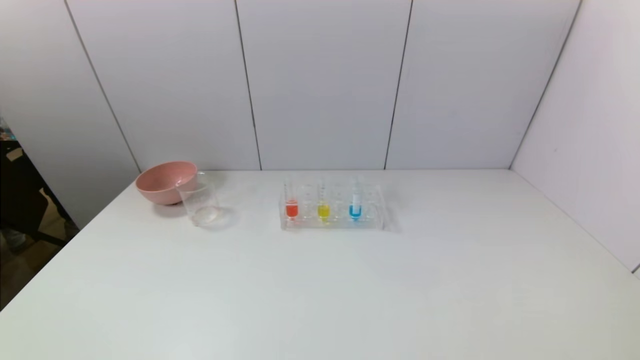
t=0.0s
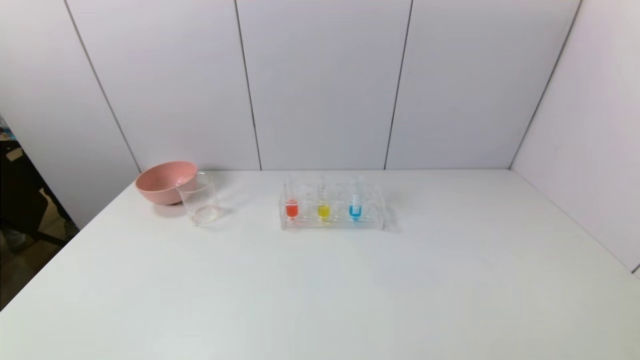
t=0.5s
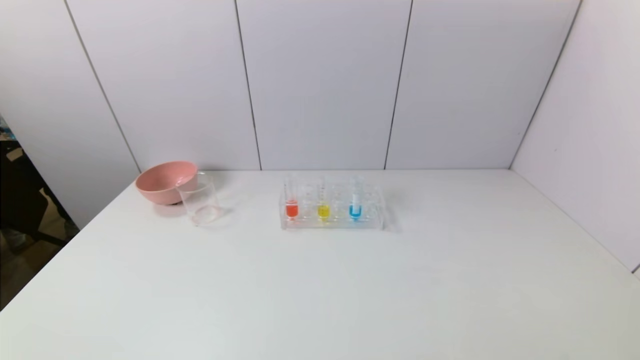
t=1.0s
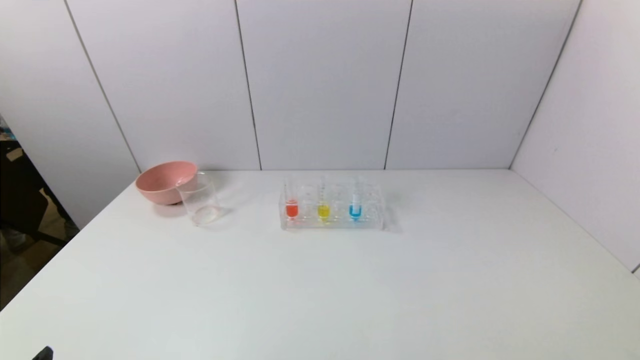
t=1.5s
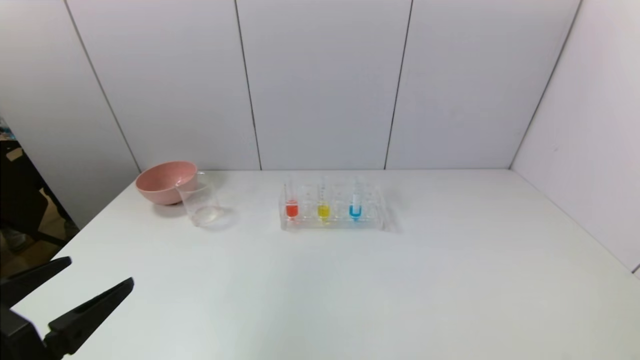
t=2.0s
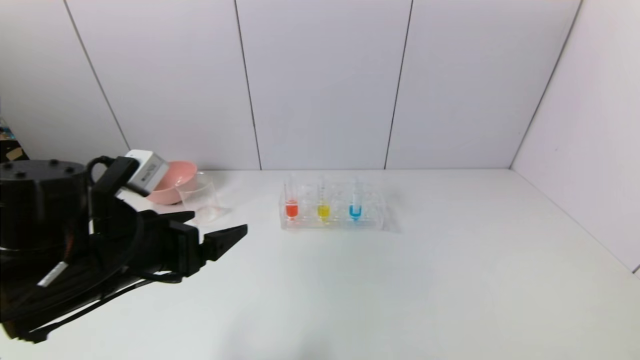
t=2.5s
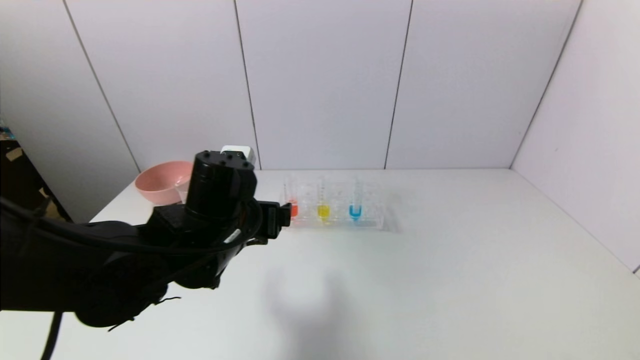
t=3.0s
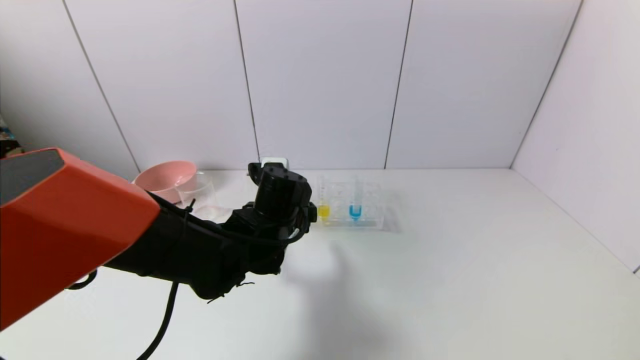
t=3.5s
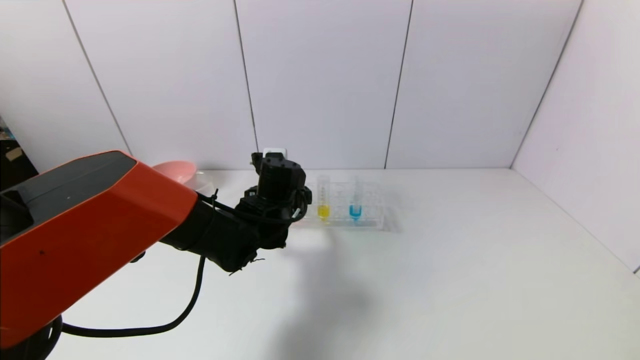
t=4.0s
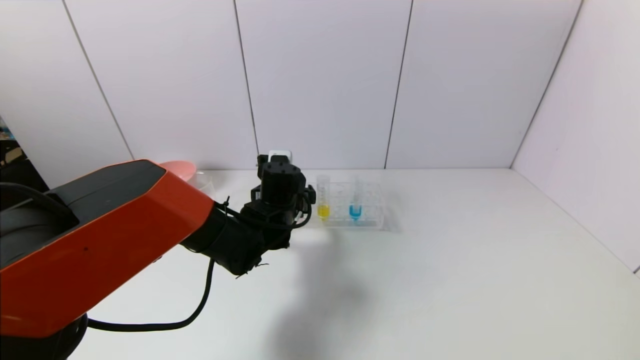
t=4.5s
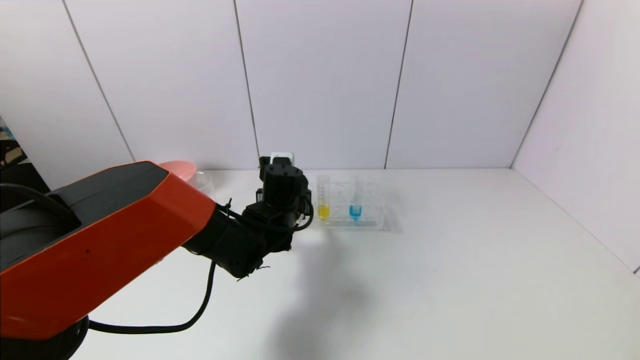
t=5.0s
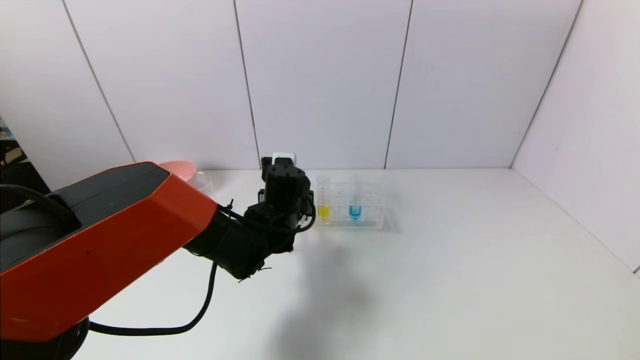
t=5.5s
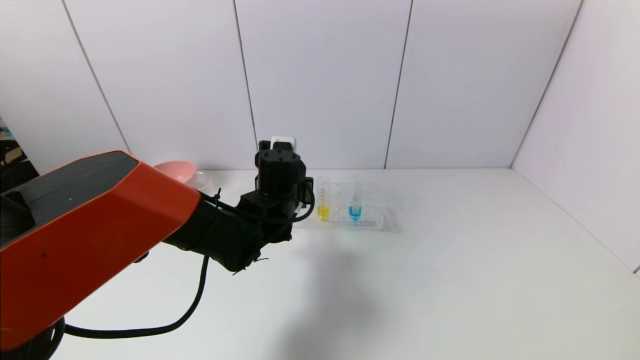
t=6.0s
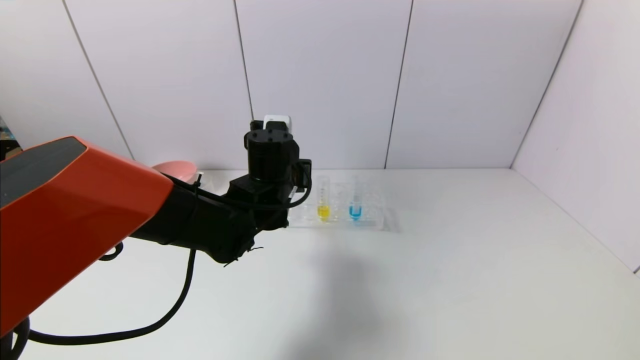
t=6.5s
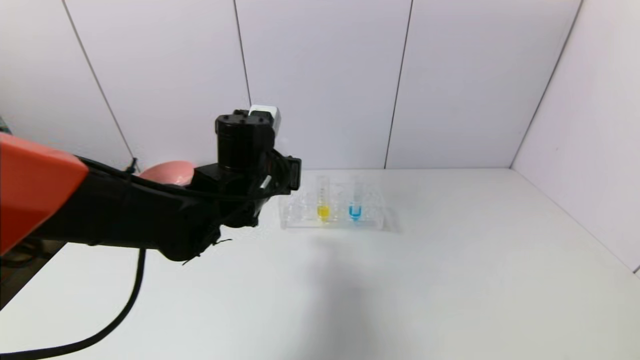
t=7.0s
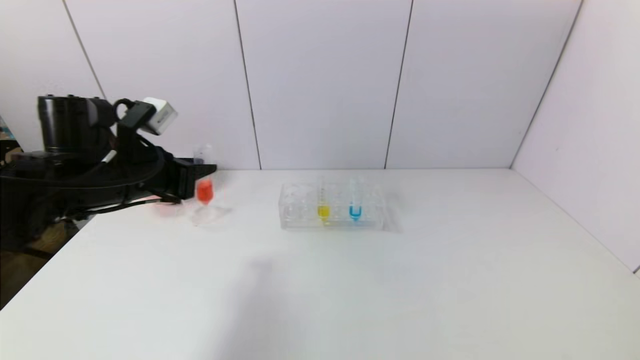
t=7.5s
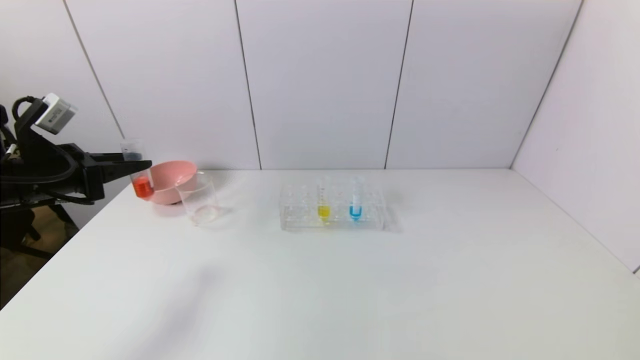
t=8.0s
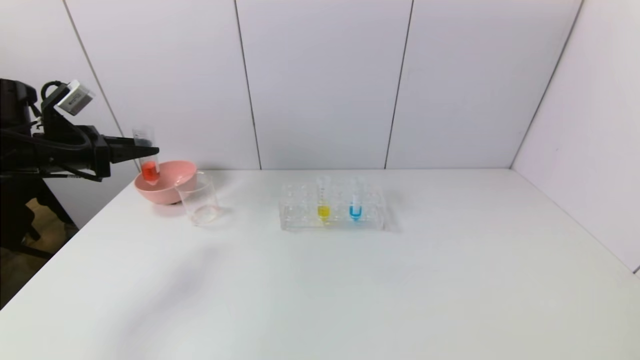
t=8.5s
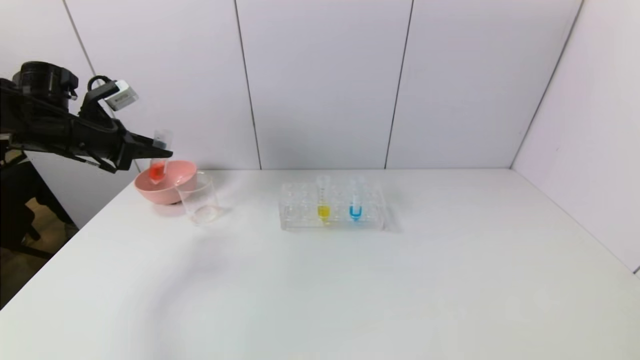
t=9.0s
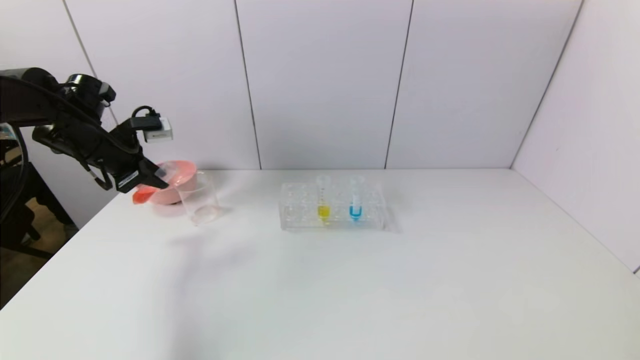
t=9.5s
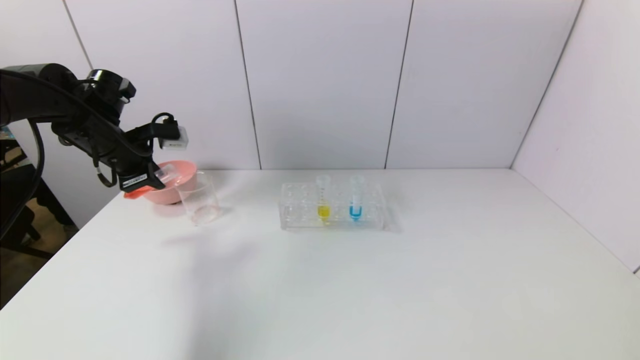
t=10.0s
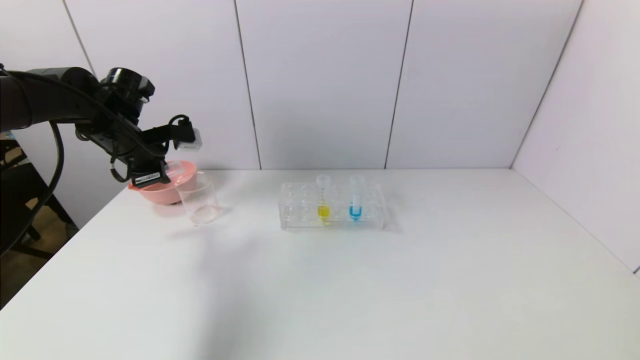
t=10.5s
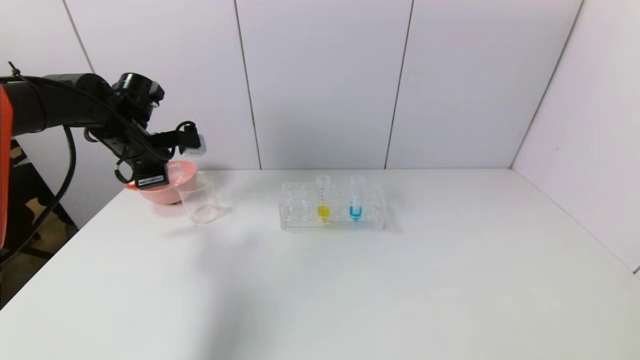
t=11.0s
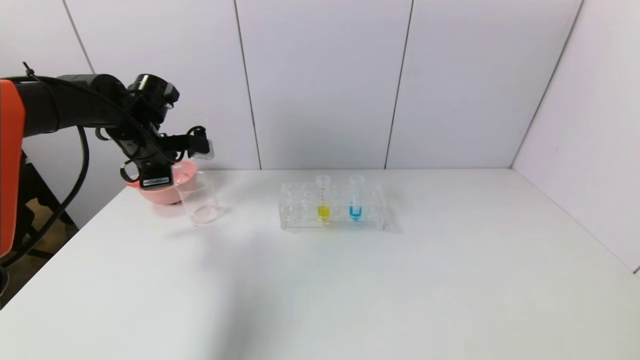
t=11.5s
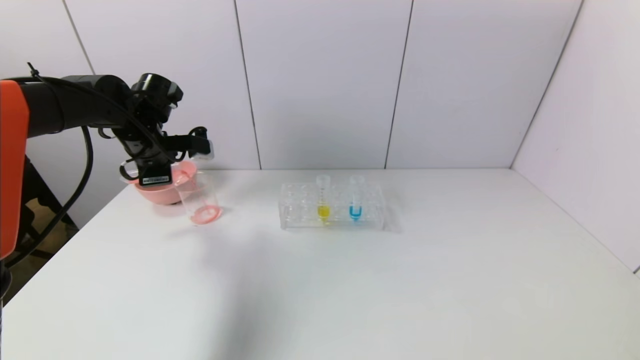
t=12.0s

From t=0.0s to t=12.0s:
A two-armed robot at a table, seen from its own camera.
Task of the whole recording: pick up the test tube with red pigment and the test tube with blue pigment by grippers and pour them into the container.
Step, from t=0.0s to t=5.0s: Grasp the red reagent with the left gripper.
From t=0.0s to t=2.0s: The left gripper is displaced forward and upward by roughly 15 cm.
From t=2.0s to t=4.0s: The left gripper travels forward and to the right by approximately 35 cm.
From t=4.0s to t=6.0s: The left gripper closes up.
From t=6.0s to t=8.0s: The left gripper heads to the left, covering some 30 cm.
From t=8.0s to t=10.0s: The left gripper heads forward, covering approximately 10 cm.
From t=10.0s to t=12.0s: The left gripper shifts by approximately 5 cm.

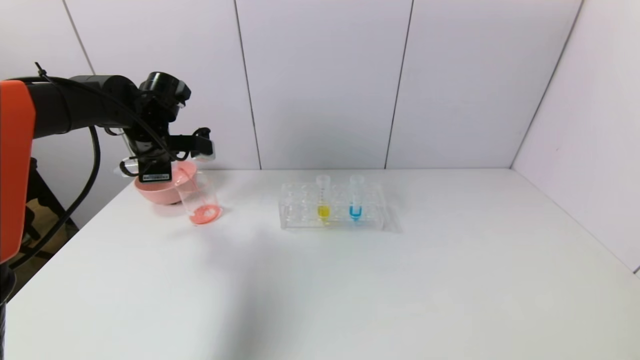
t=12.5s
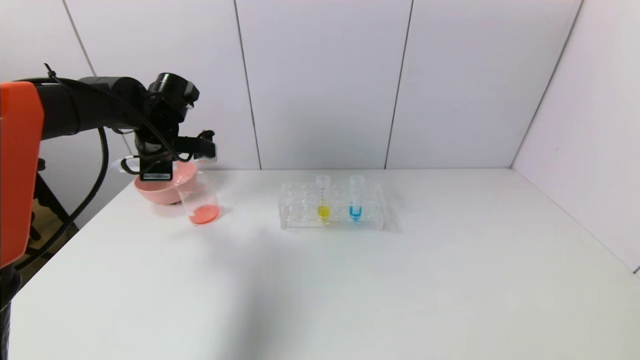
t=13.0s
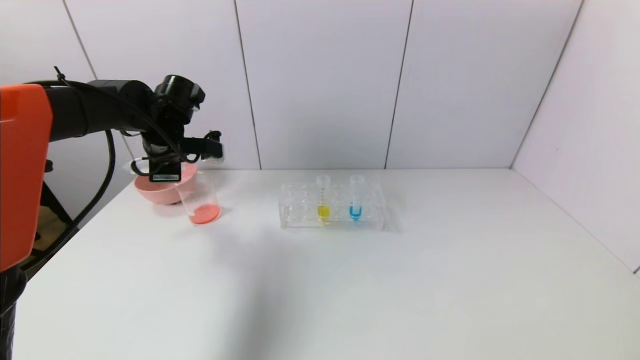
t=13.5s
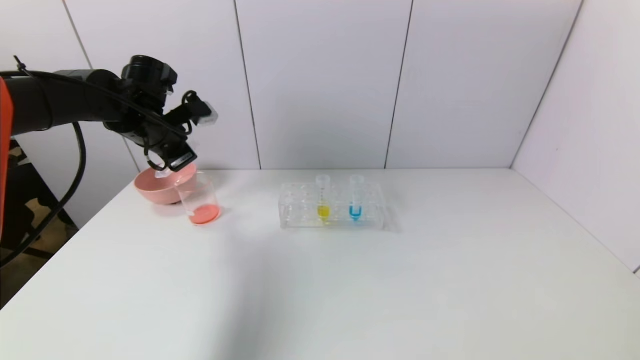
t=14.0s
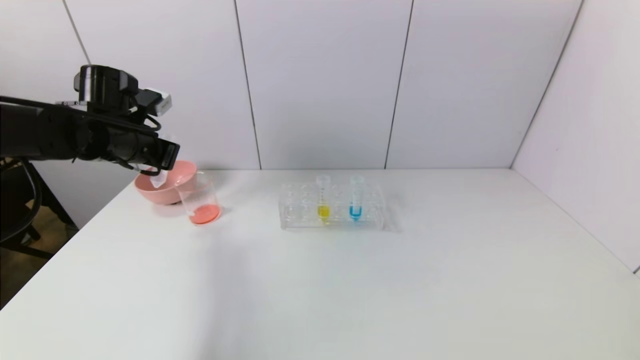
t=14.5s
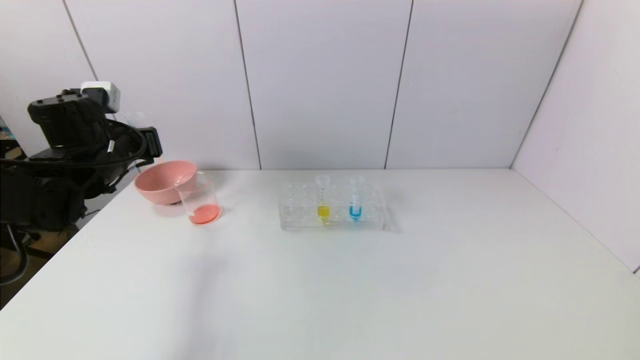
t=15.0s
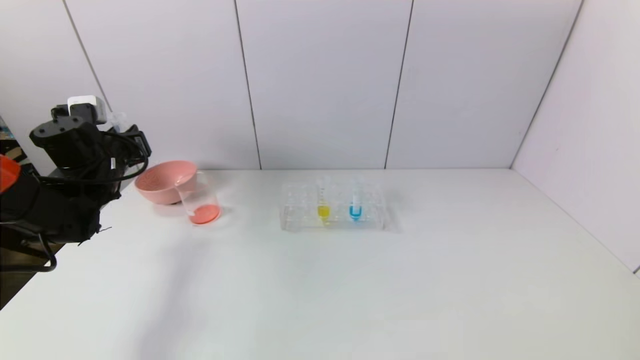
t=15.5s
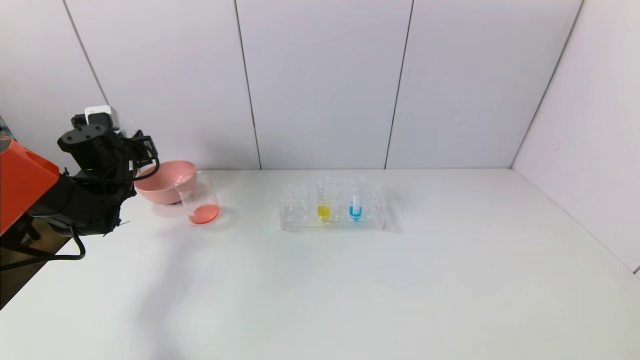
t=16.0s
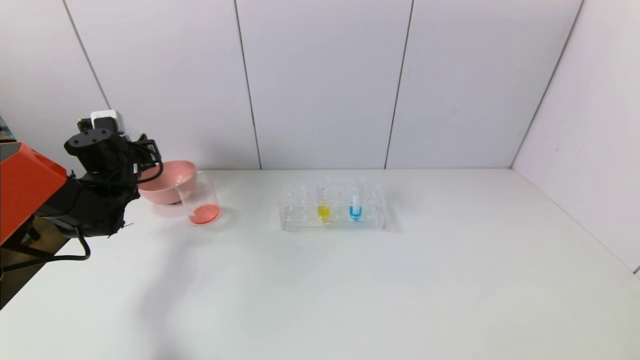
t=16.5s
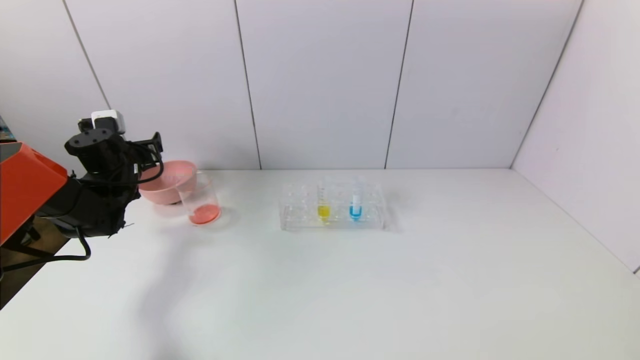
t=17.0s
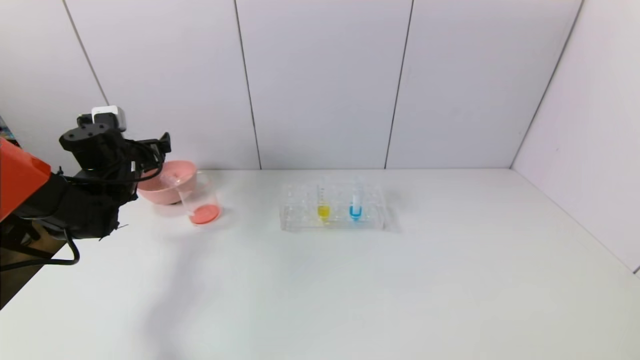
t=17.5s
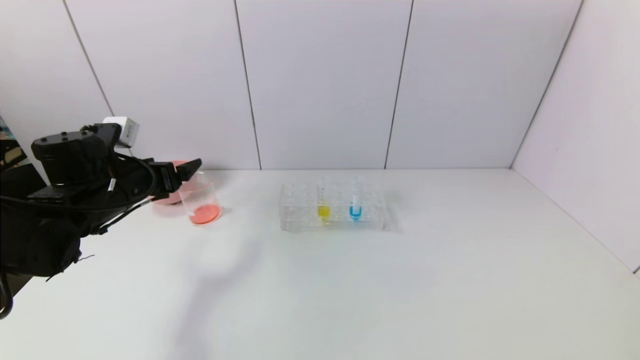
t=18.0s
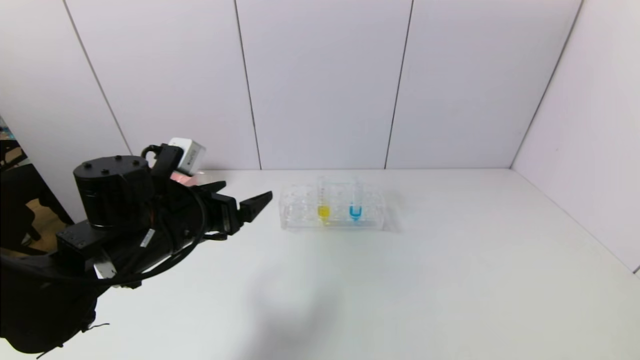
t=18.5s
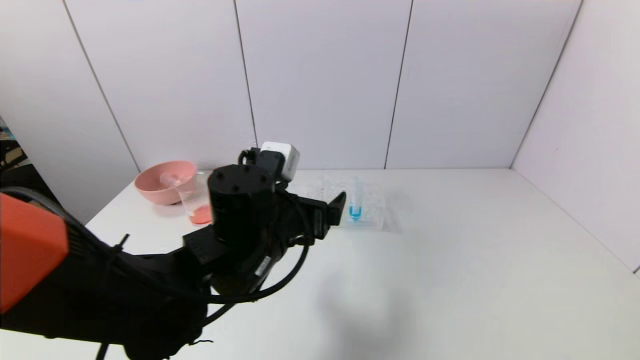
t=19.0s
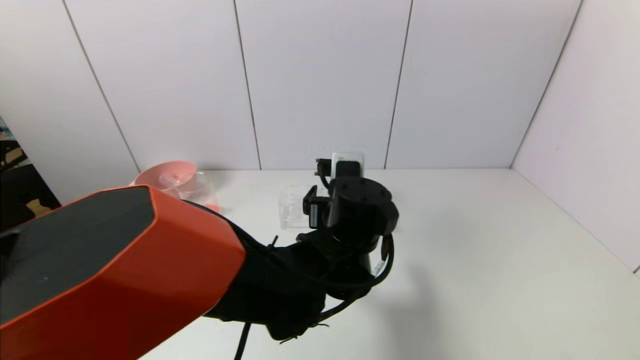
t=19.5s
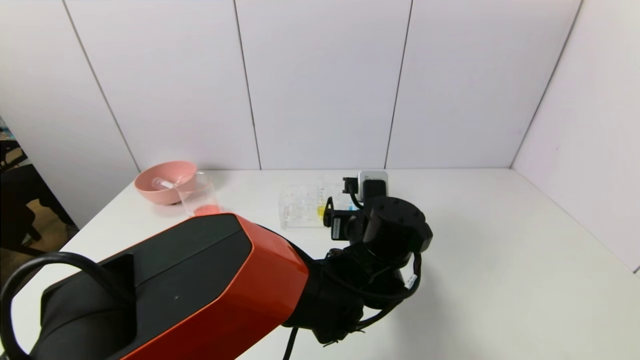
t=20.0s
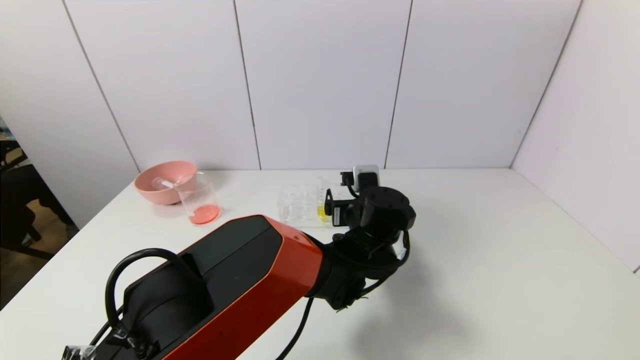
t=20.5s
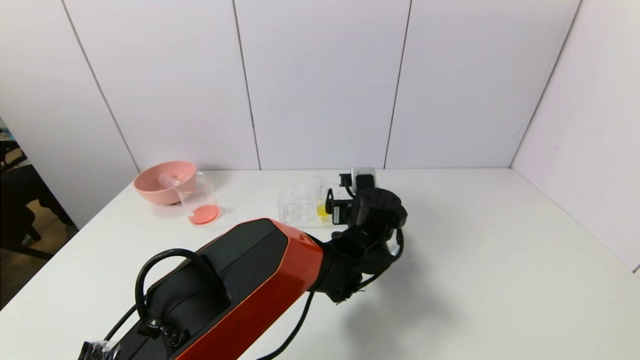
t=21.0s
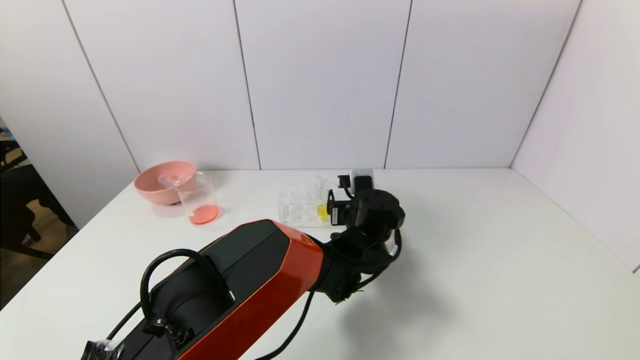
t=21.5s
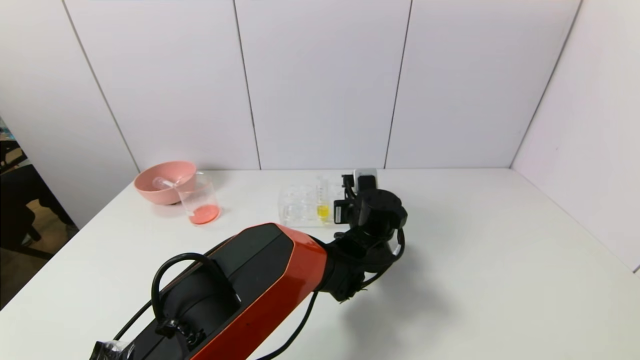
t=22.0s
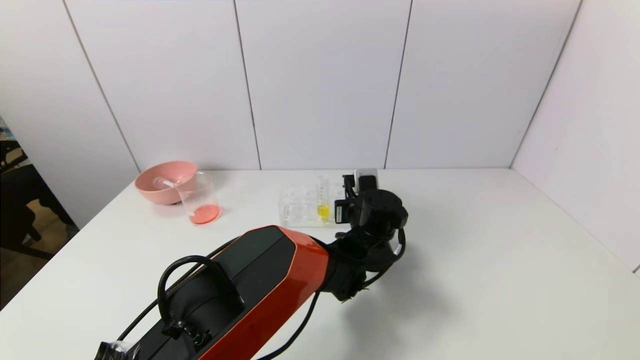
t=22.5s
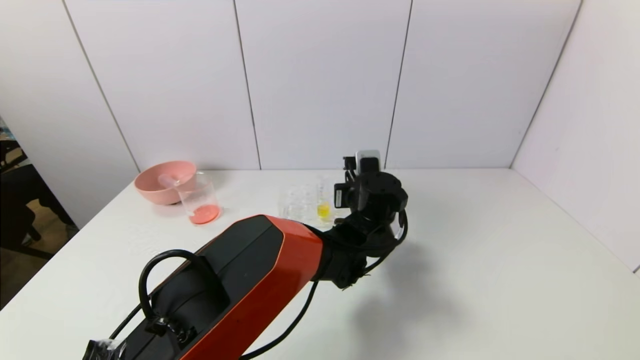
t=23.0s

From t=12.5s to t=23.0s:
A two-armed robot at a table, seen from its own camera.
Task of the whole recording: pick up the test tube with red pigment and the test tube with blue pigment by grippers and pour them into the container.
Step, from t=13.5s to t=16.5s: Place the test tube into the bowl with the left gripper.
Step, from t=17.0s to t=22.0s: Grasp the blue reagent with the left gripper.
From t=14.5s to t=16.5s: The left gripper is displaced downward, to the left and forward by some 10 cm.
From t=16.5s to t=19.0s: The left gripper heads to the right and backward, covering roughly 35 cm, and opens.
From t=19.0s to t=21.0s: The left gripper goes some 20 cm to the right, forward and downward.
From t=21.0s to t=23.0s: The left gripper closes up.
